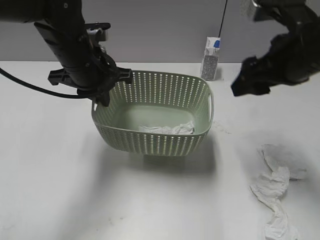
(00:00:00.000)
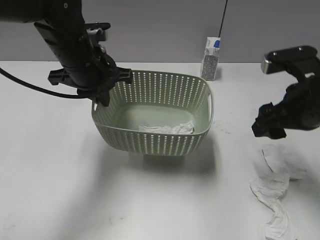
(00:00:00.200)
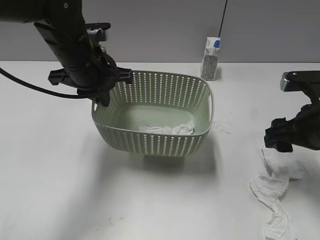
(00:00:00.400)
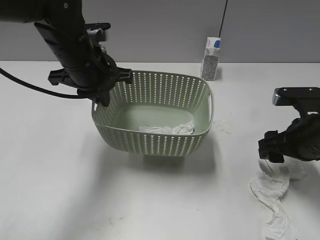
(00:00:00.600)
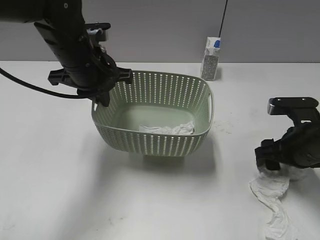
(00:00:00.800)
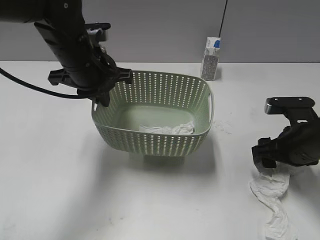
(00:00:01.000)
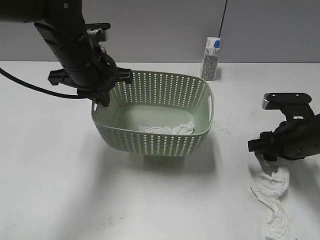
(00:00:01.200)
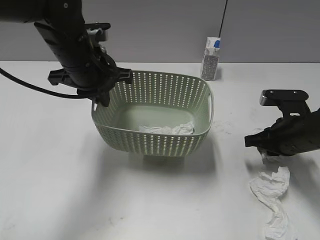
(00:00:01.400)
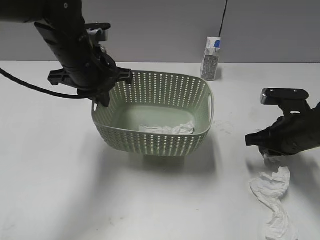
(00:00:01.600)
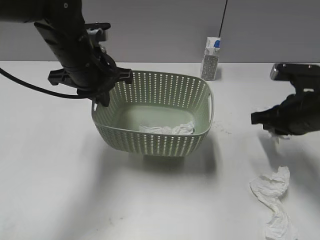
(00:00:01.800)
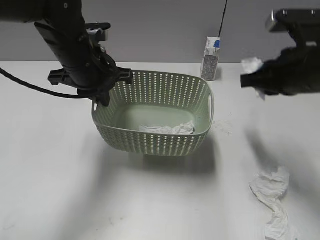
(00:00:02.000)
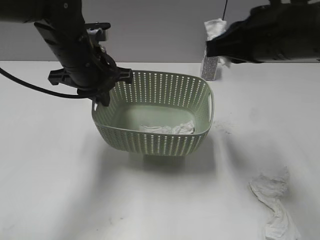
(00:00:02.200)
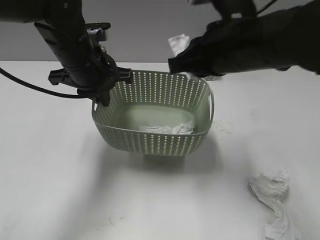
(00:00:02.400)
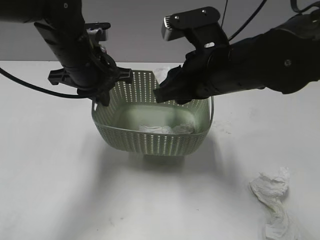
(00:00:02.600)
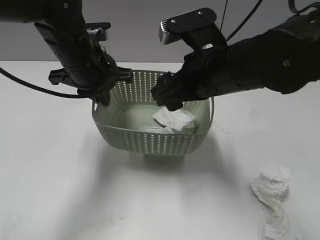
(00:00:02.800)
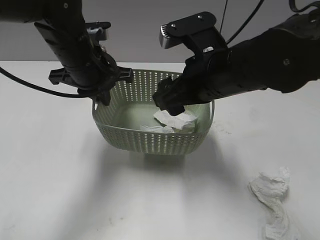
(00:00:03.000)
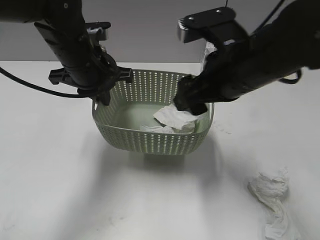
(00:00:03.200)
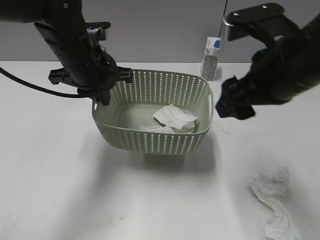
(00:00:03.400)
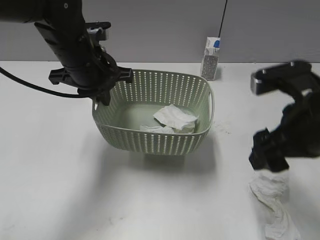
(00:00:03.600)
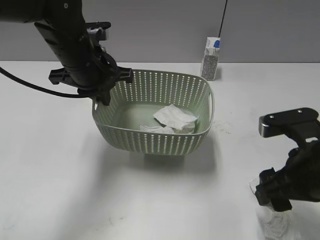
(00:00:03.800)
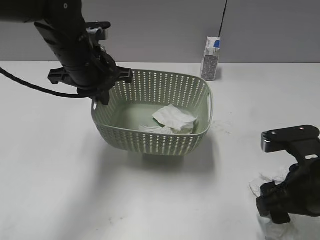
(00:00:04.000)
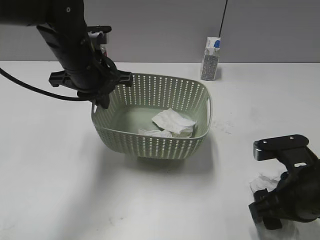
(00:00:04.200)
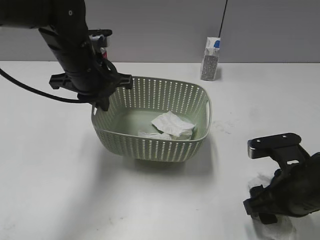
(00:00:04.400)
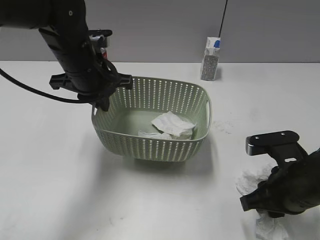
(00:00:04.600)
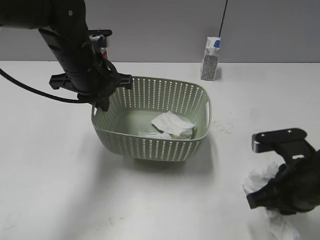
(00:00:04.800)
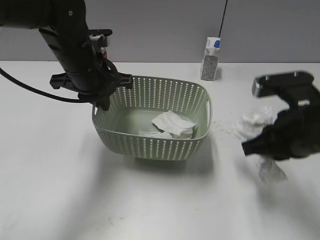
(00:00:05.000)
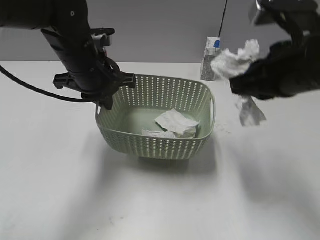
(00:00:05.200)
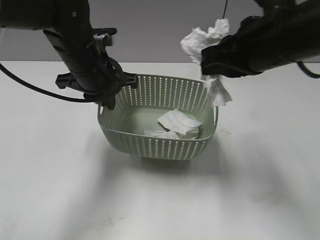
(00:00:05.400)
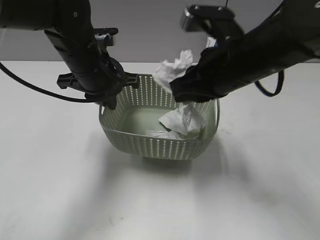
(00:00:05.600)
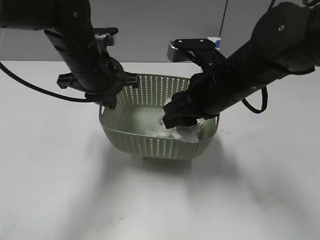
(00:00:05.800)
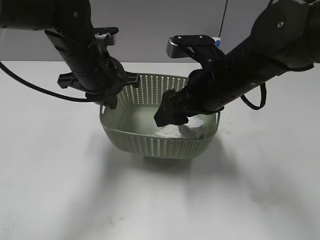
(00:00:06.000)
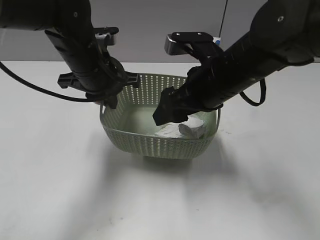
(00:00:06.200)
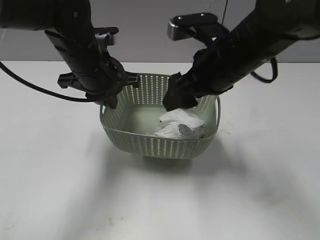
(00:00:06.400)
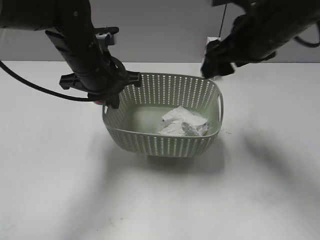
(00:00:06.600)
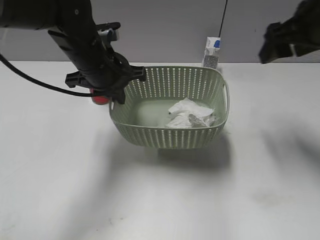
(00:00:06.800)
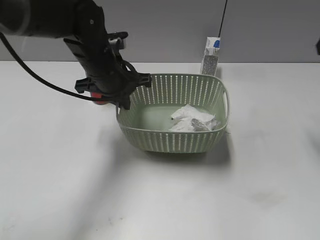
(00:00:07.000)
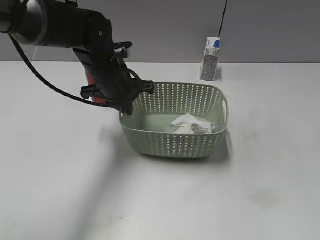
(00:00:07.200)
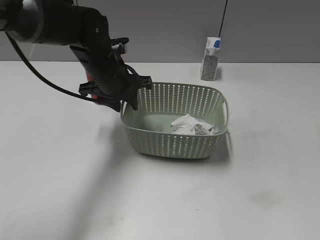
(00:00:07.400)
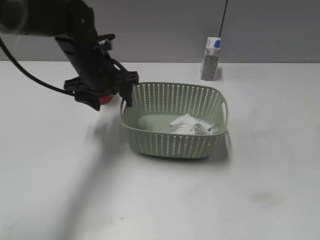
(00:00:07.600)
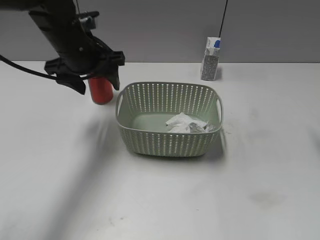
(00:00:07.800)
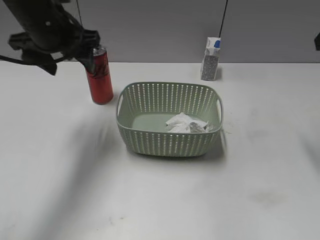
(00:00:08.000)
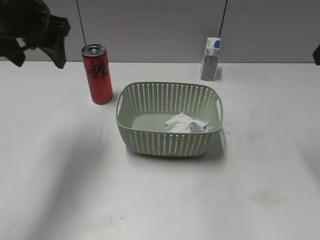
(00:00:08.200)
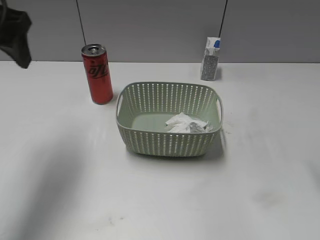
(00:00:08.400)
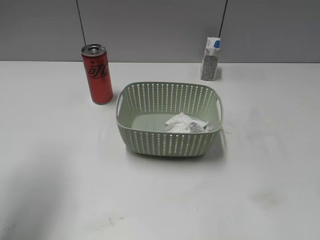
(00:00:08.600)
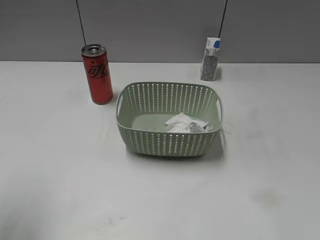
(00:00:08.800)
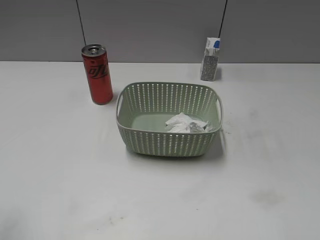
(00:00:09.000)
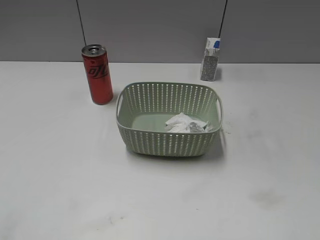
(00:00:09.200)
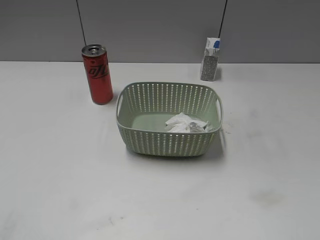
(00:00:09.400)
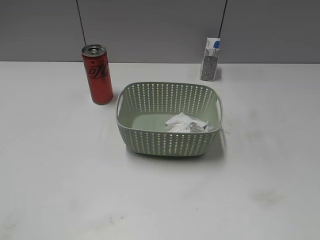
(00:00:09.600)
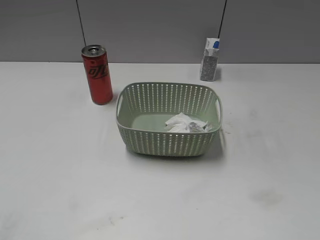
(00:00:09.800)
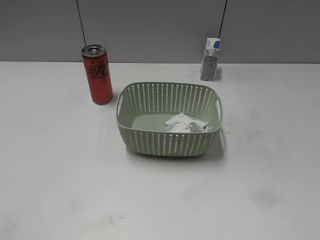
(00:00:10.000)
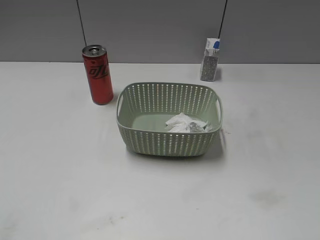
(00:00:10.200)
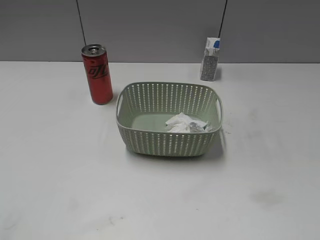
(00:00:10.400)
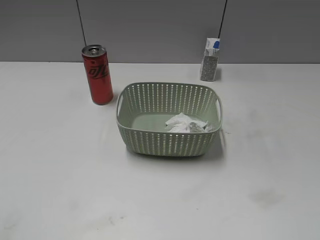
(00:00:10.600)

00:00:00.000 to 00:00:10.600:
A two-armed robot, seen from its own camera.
Step, 00:00:00.000 to 00:00:01.400: Grasp the waste paper with right gripper.
Step, 00:00:01.600 to 00:00:03.400: Place the waste paper in the basket with right gripper.
Step, 00:00:03.600 to 00:00:04.800: Grasp the waste paper with right gripper.
Step, 00:00:05.000 to 00:00:06.600: Place the waste paper in the basket with right gripper.
Step, 00:00:06.800 to 00:00:07.800: Place the basket on the table with left gripper.
00:00:00.000 to 00:00:01.600: The right gripper travels downward by some 15 cm, and closes.
00:00:01.600 to 00:00:03.000: The right gripper moves to the left and upward, approximately 20 cm, and opens.
00:00:03.000 to 00:00:04.600: The right gripper goes roughly 20 cm to the right, downward and backward, and closes its fingers.
00:00:04.600 to 00:00:06.000: The right gripper goes about 20 cm to the left, forward and upward, and opens.
00:00:06.000 to 00:00:07.600: The right gripper travels to the right and upward by roughly 25 cm. Meanwhile the left gripper opens.
00:00:07.600 to 00:00:09.000: The right gripper heads backward, covering about 20 cm, while the left gripper travels backward, to the left and upward by approximately 35 cm.

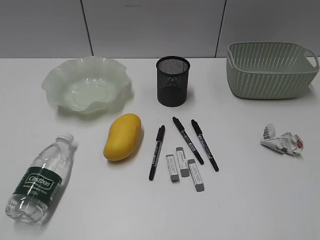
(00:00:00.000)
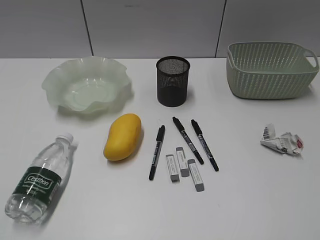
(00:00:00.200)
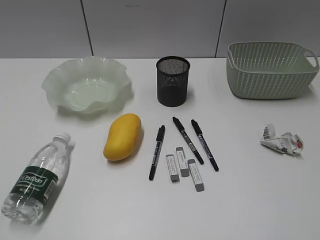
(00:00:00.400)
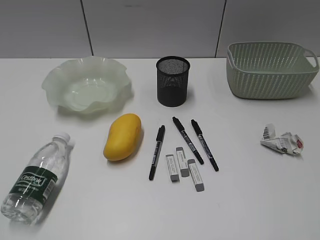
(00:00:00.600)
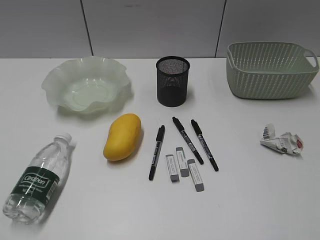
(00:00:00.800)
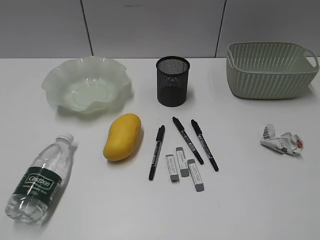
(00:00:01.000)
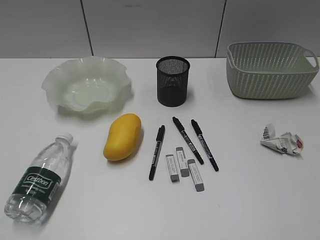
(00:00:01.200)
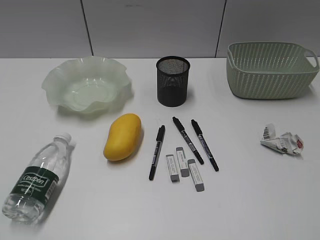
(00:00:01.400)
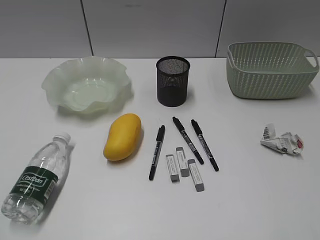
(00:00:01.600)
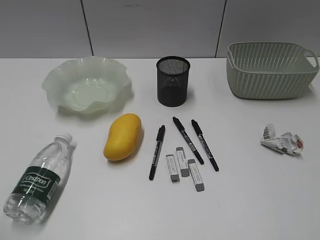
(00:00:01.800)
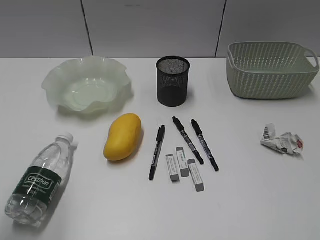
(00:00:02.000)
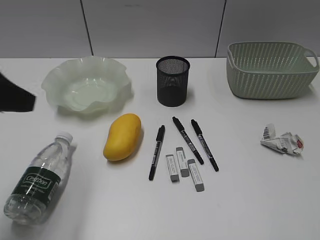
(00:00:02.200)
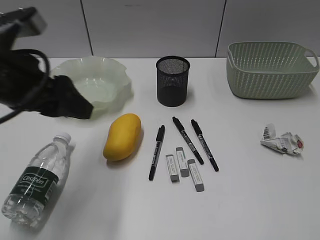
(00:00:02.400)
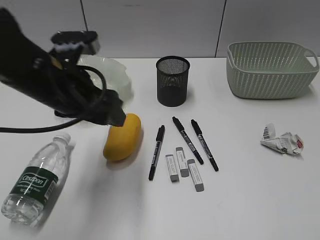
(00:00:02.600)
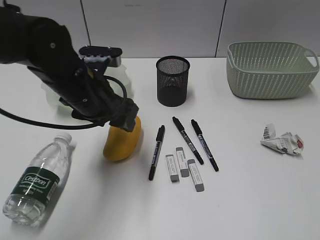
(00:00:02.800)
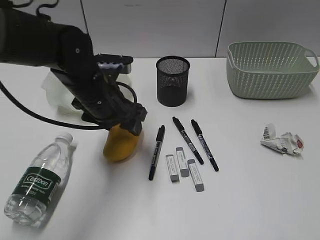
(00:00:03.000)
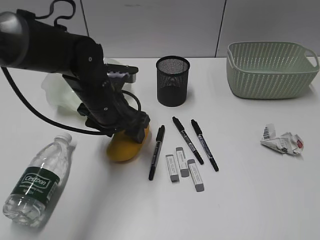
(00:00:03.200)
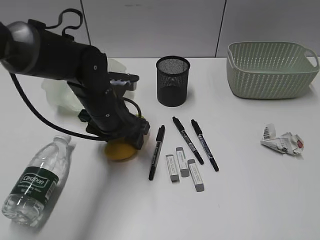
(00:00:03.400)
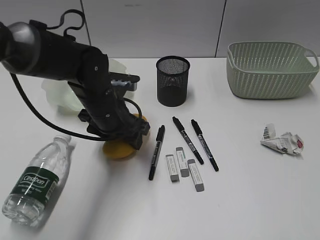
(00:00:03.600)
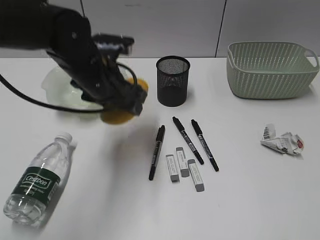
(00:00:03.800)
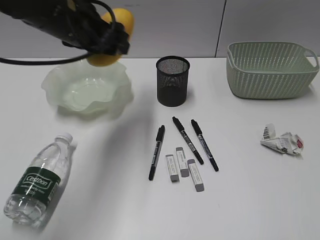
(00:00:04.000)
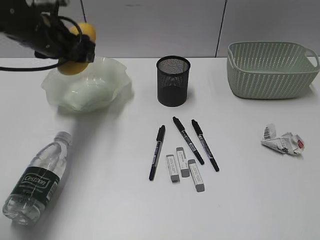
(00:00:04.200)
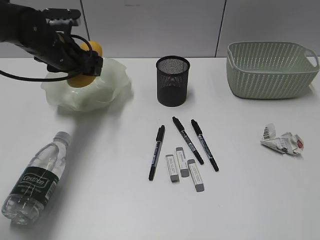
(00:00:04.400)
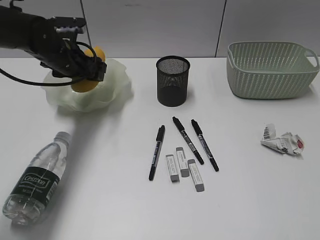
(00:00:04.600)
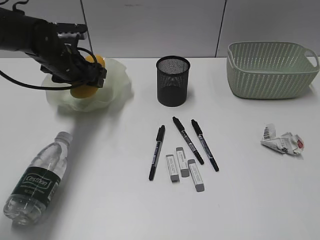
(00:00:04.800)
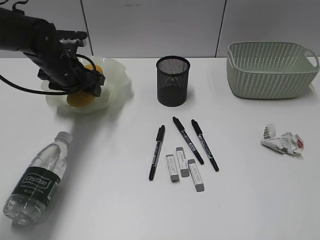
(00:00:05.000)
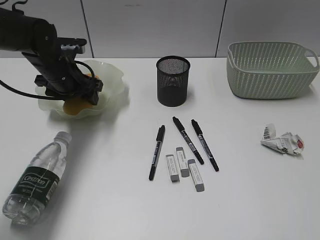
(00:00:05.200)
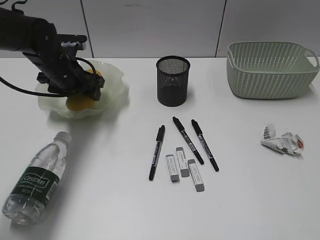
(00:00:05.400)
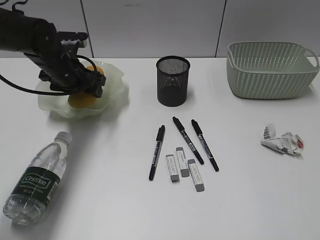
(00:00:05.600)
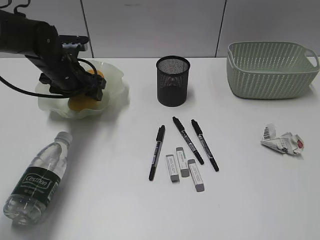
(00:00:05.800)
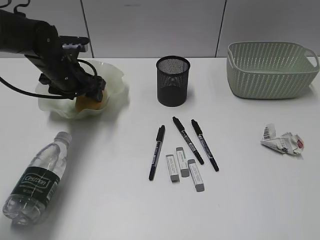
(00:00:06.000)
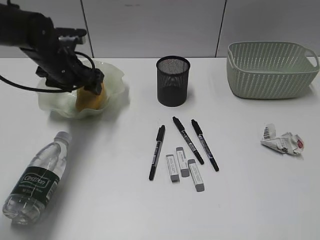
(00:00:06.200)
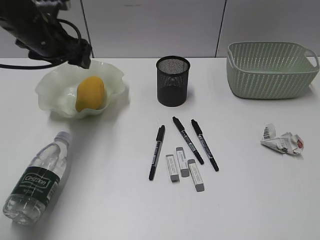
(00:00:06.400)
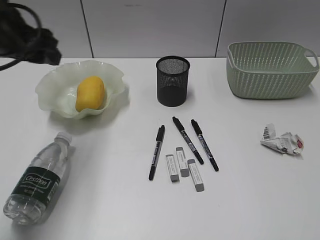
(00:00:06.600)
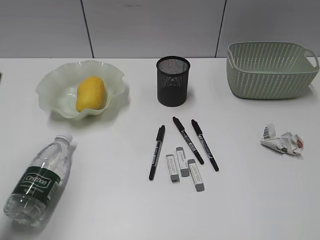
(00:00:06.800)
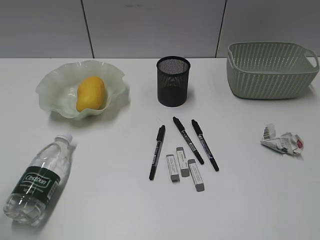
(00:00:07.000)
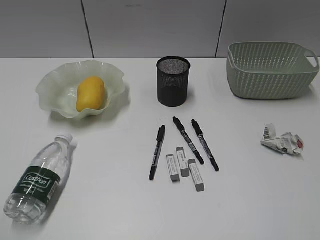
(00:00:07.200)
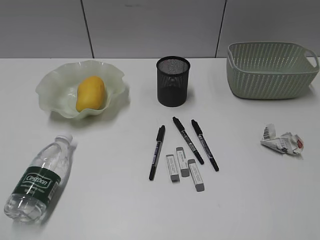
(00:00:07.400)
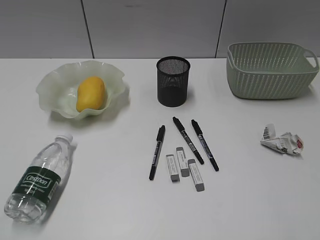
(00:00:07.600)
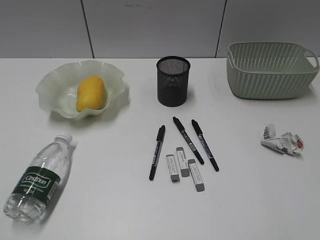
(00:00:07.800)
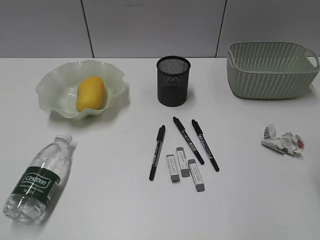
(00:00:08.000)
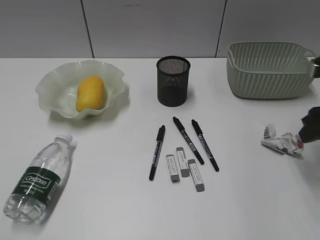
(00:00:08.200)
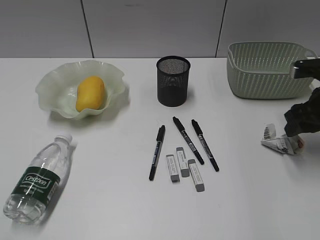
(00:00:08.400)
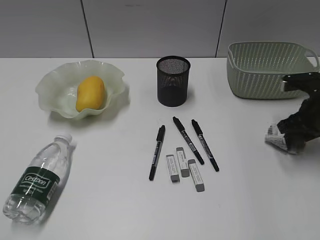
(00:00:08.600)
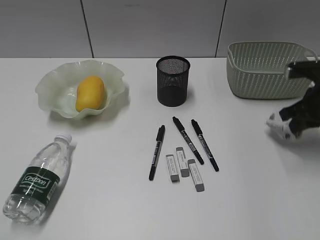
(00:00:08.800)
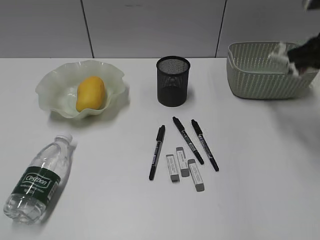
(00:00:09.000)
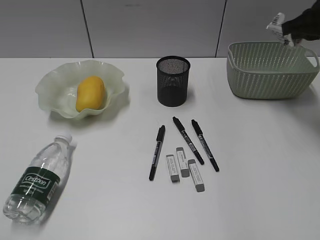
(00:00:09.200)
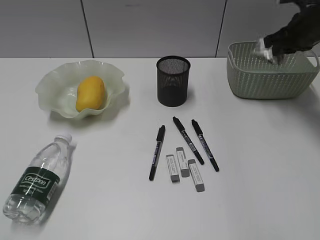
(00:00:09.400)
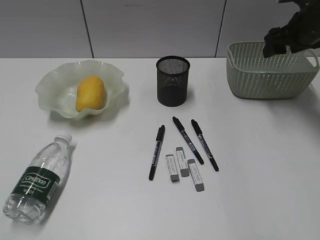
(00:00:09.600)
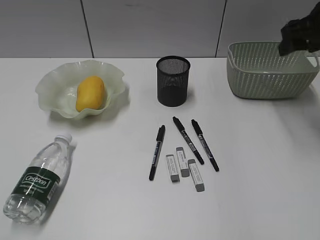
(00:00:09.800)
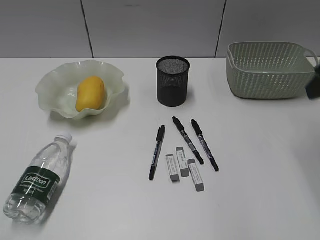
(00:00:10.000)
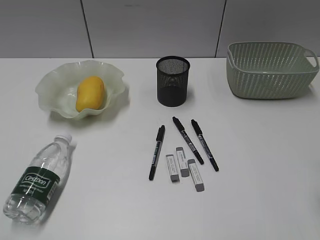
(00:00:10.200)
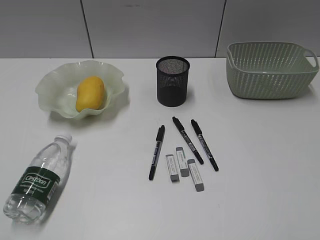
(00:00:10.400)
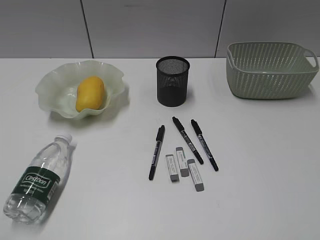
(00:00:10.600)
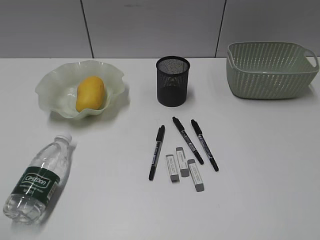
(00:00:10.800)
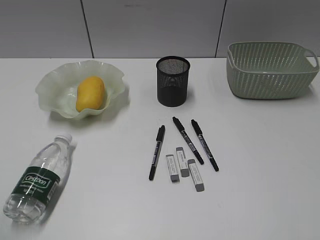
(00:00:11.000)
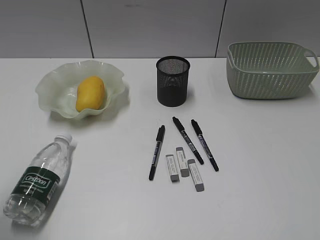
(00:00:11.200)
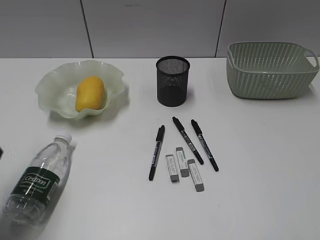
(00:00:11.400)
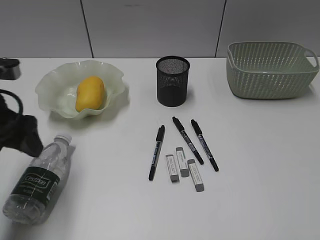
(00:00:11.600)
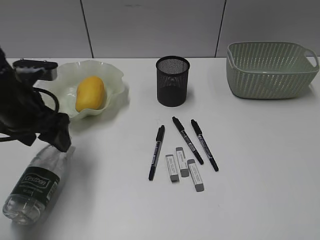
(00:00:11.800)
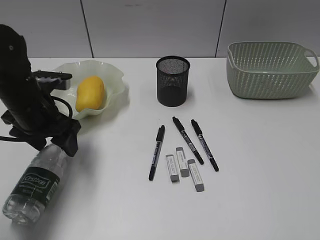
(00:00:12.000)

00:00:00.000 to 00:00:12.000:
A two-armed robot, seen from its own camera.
Step, 00:00:01.600 to 00:00:03.400: Grasp the mango with left gripper.
Step, 00:00:03.600 to 00:00:06.200: Place the mango in the plate with left gripper.
Step, 00:00:06.400 to 00:00:08.600: Grasp the waste paper with right gripper.
Step, 00:00:08.800 to 00:00:09.600: Place the waste paper in the basket with right gripper.
00:00:01.600 to 00:00:03.000: The left gripper shifts approximately 40 cm forward and to the right, and opens up.
00:00:03.000 to 00:00:04.400: The left gripper swings up and down, approximately 15 cm each way, with 2 reversals.
00:00:04.400 to 00:00:06.000: There are only small adjustments of the grippers.
00:00:06.000 to 00:00:07.600: The left gripper shifts roughly 40 cm backward.
00:00:07.600 to 00:00:09.000: The right gripper moves forward, approximately 30 cm, and closes its fingers.
00:00:09.000 to 00:00:10.400: The right gripper travels backward by about 25 cm, and opens its fingers.
00:00:10.400 to 00:00:12.000: The left gripper shifts some 30 cm forward.
